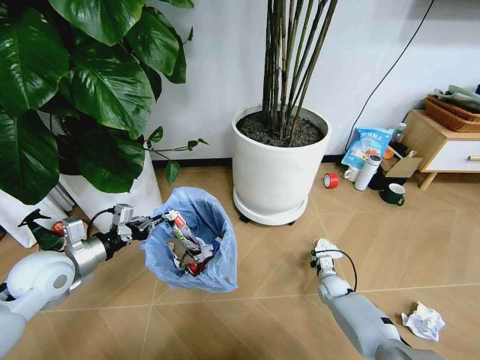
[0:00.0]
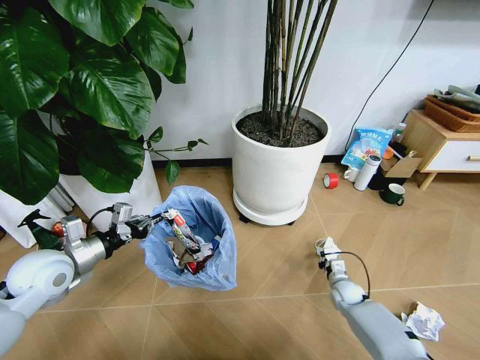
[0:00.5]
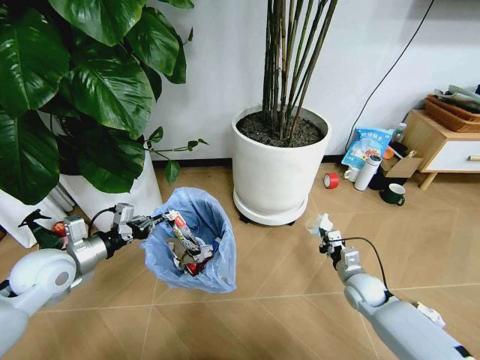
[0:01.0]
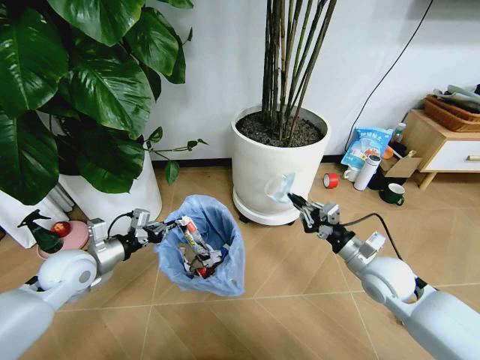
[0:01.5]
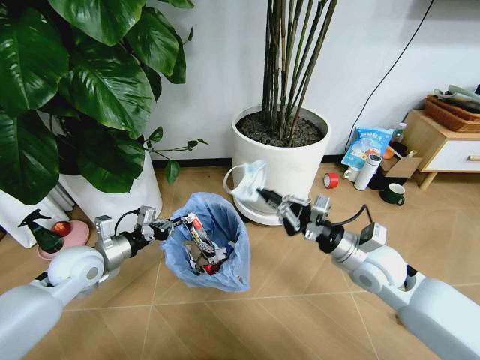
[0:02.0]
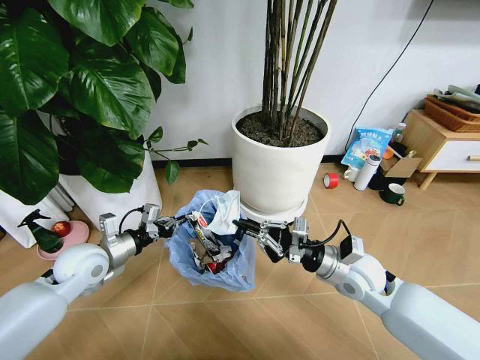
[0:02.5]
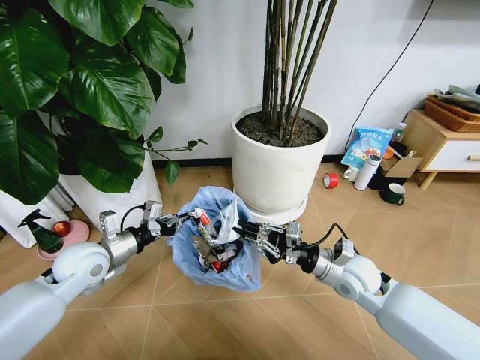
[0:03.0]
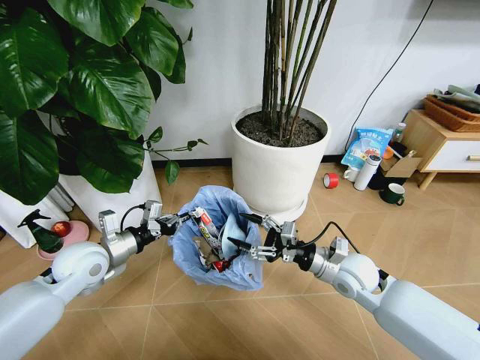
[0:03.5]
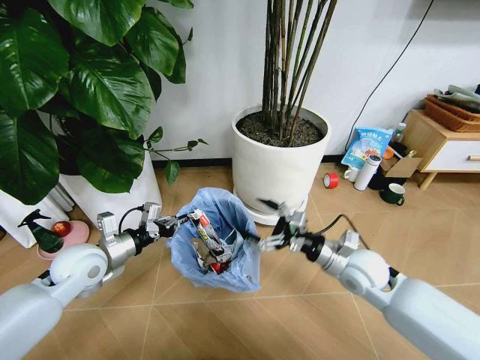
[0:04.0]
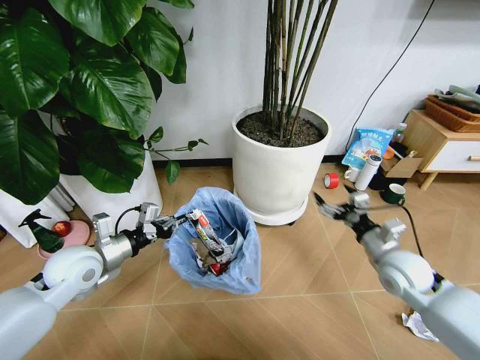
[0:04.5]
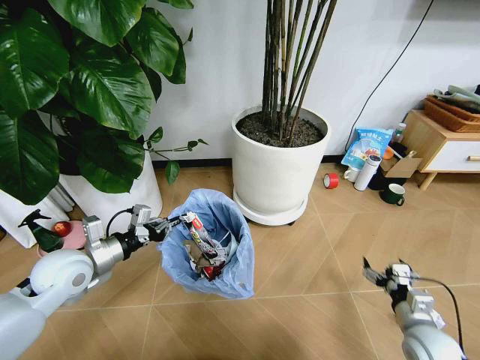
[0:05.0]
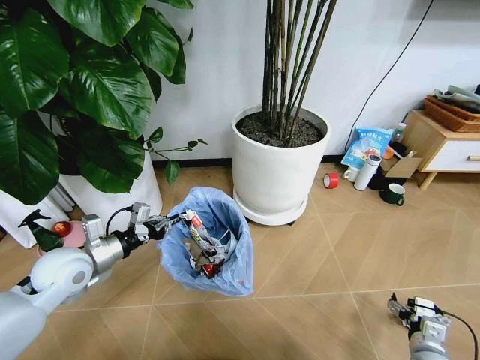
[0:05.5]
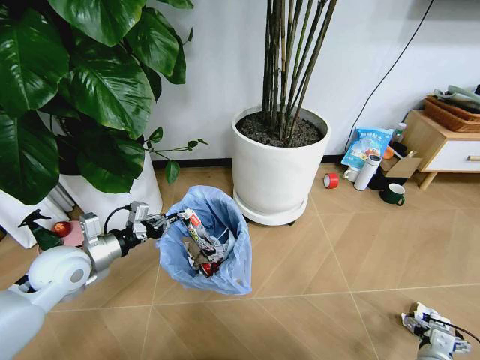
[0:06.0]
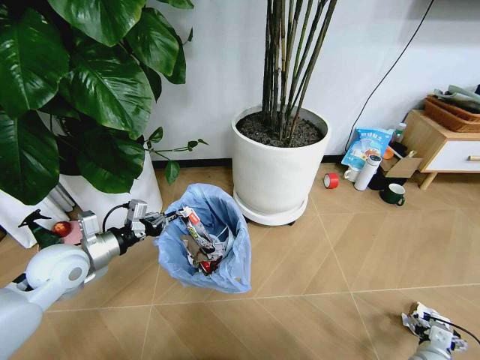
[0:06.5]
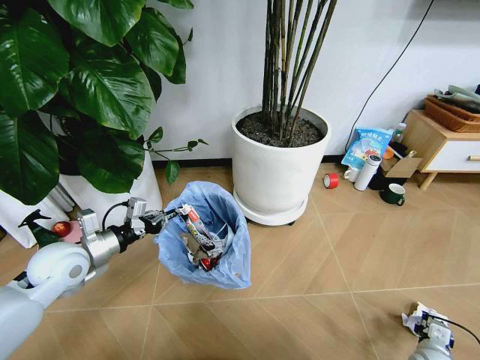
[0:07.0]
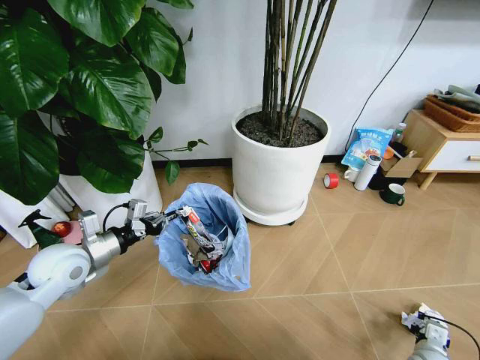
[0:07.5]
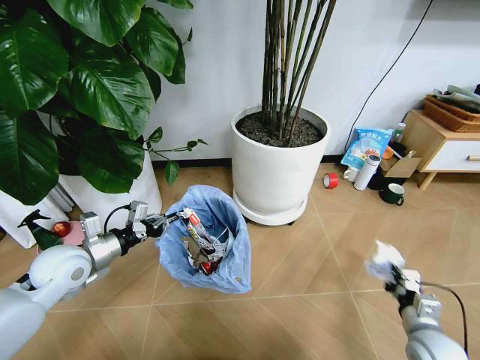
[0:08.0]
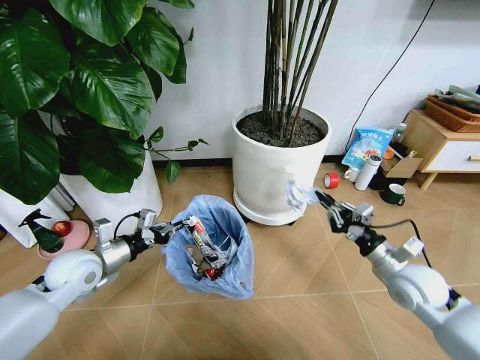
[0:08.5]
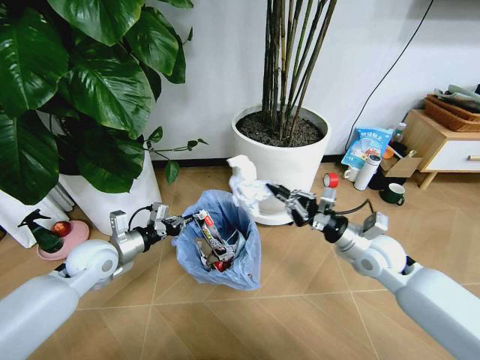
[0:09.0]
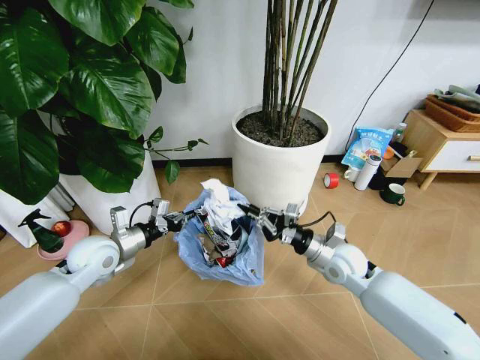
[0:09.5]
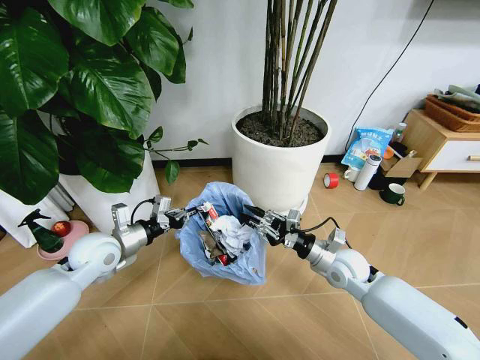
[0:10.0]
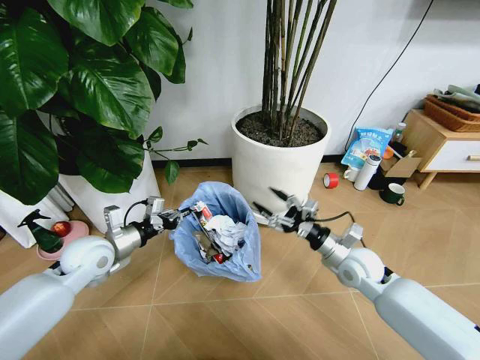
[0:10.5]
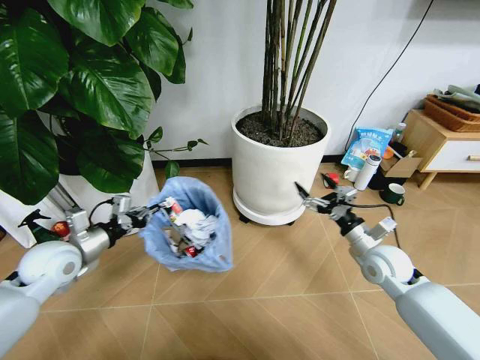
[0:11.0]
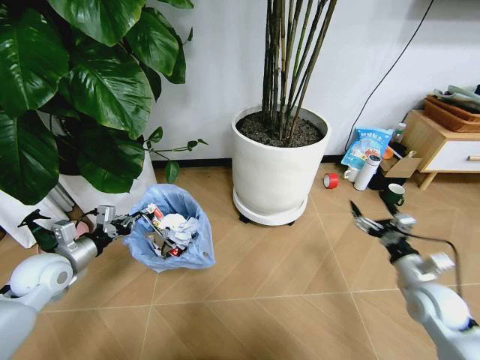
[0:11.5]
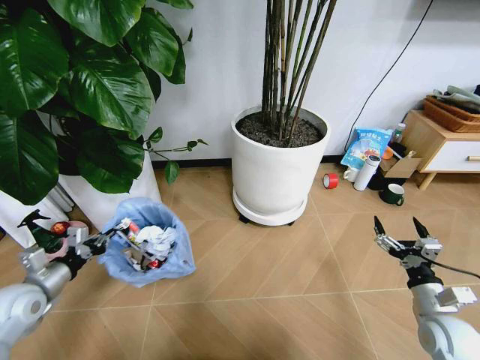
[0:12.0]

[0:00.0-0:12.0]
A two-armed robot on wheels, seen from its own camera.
Task of the whole recording: Pick up the trash bin and place the garbage on the floor into it.
0:00.0 to 0:02.0: The right gripper shifts roughly 30 cm upward, while the left gripper ends up some 5 cm from where it was.
0:02.0 to 0:04.0: The right gripper opens up.
0:04.0 to 0:06.0: The right gripper heads downward, backward and to the right, covering roughly 30 cm.
0:06.0 to 0:08.0: The right gripper heads upward, covering some 10 cm, and closes.
0:08.0 to 0:10.0: The right gripper shifts approximately 20 cm forward and to the left, while the left gripper shifts by some 5 cm.
0:10.0 to 0:12.0: The left gripper goes roughly 20 cm to the left and backward; the right gripper moves backward and to the right, roughly 25 cm, and opens up.

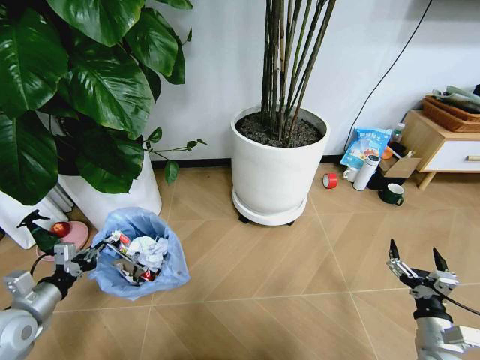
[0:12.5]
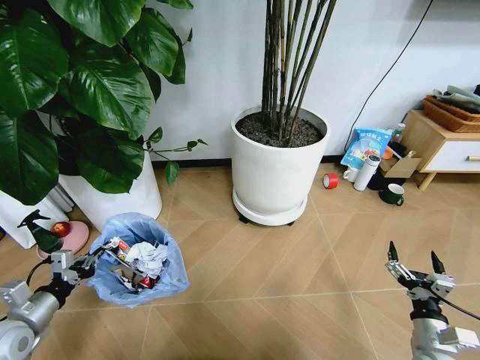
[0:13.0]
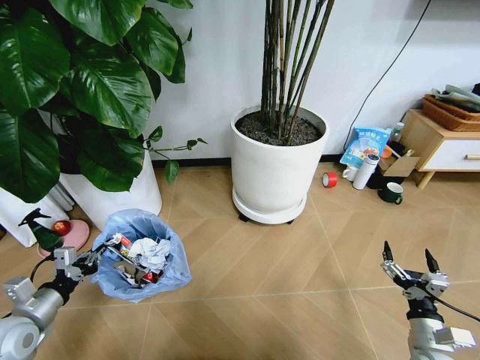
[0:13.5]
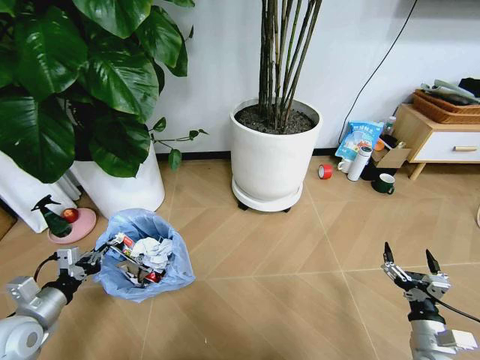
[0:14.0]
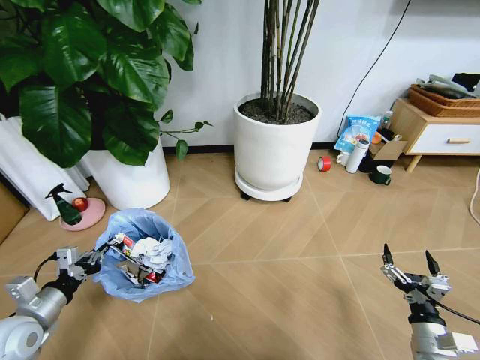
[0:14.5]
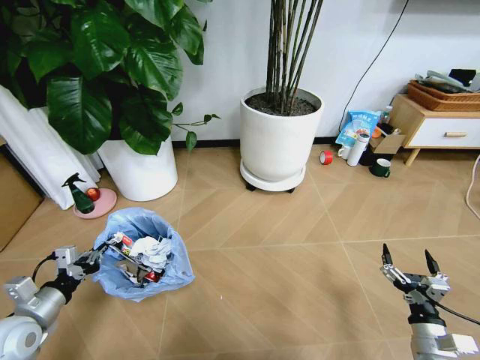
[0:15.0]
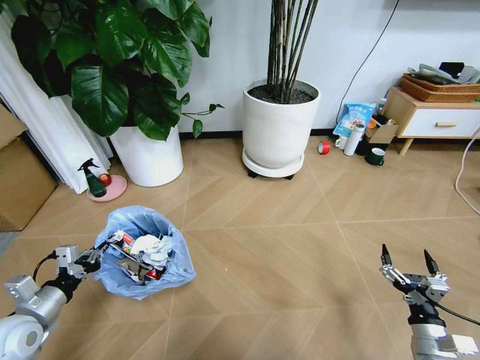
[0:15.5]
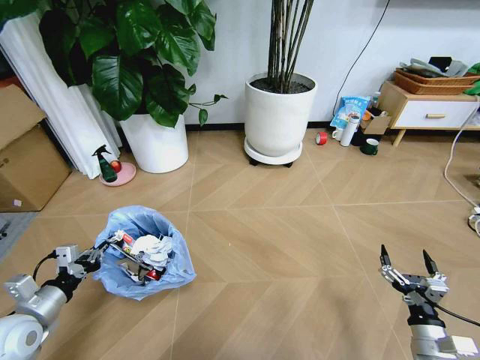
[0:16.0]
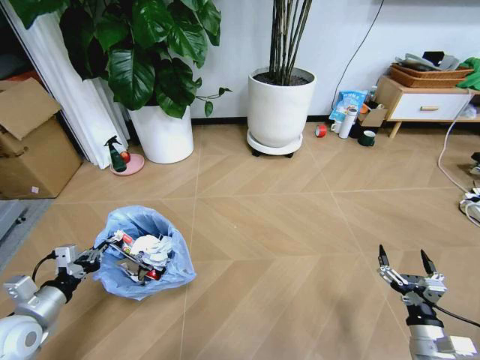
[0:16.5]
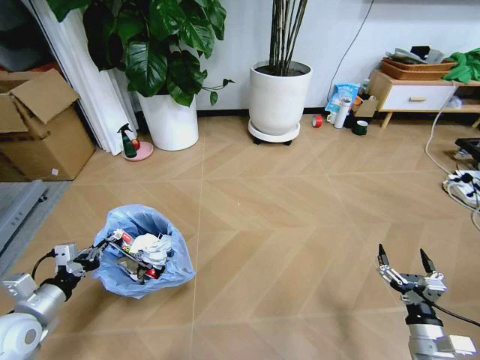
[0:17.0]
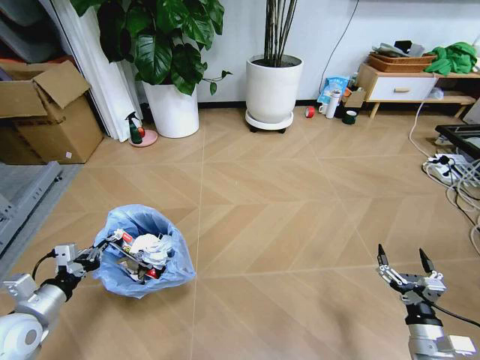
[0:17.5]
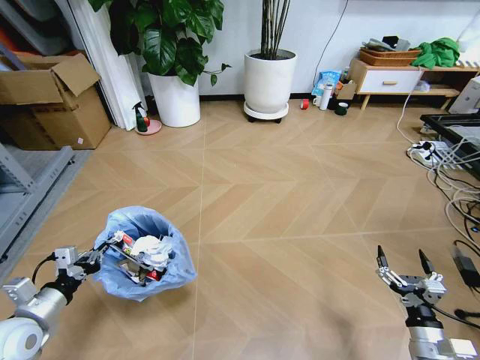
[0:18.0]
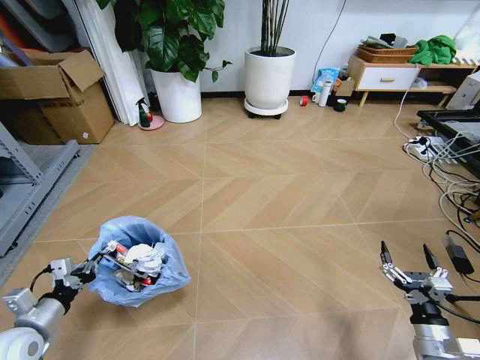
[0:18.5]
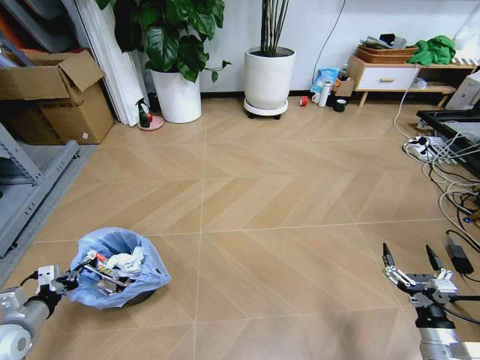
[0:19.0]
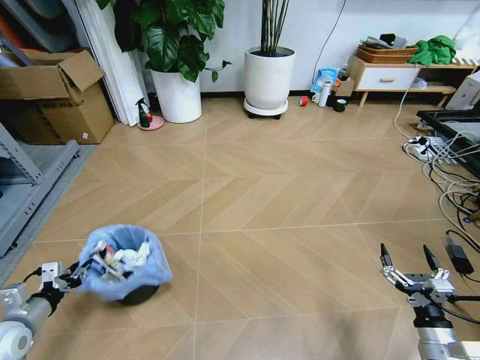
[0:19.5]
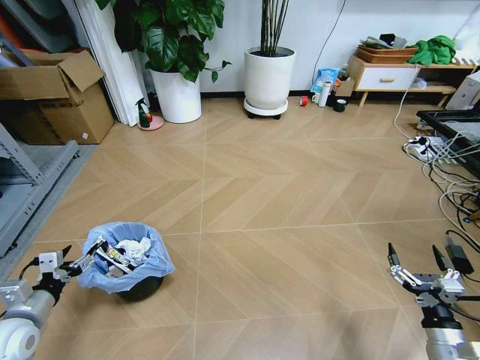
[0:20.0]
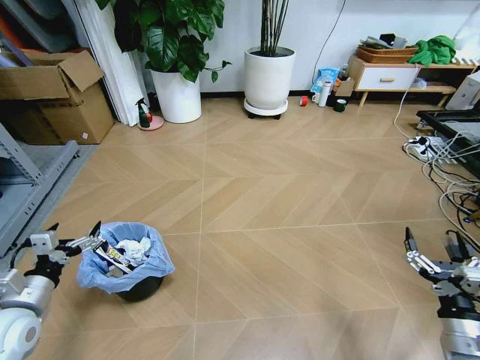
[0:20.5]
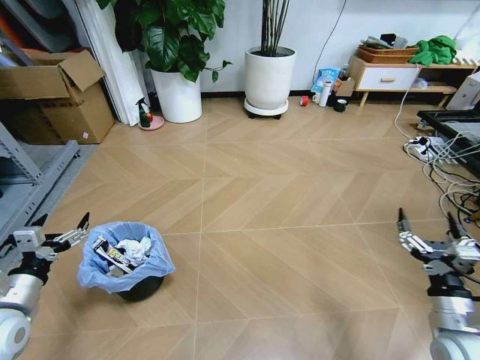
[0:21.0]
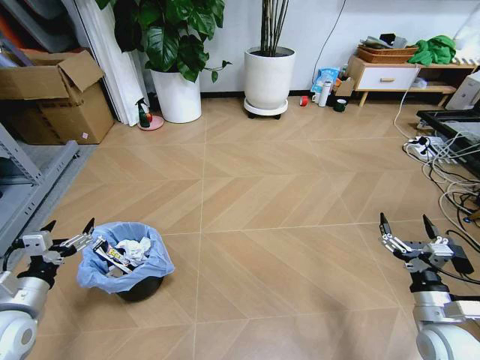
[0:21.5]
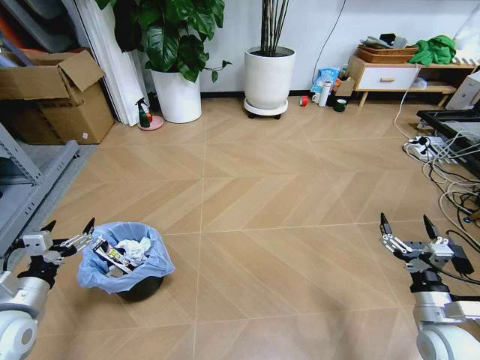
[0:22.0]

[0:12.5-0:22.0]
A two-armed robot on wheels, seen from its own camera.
Task of the whole recording: Pick up the trash bin and place the garbage on the floor into it.
0:18.0 to 0:20.0: The left gripper opens.
0:20.0 to 0:22.0: The left gripper ends up approximately 5 cm from where it was. Meanwhile the right gripper is displaced forward by some 5 cm.
